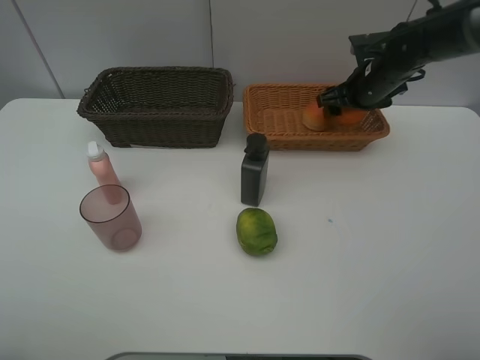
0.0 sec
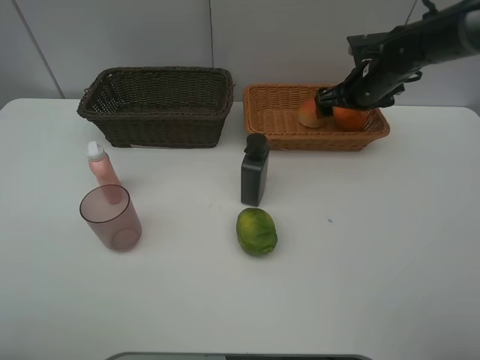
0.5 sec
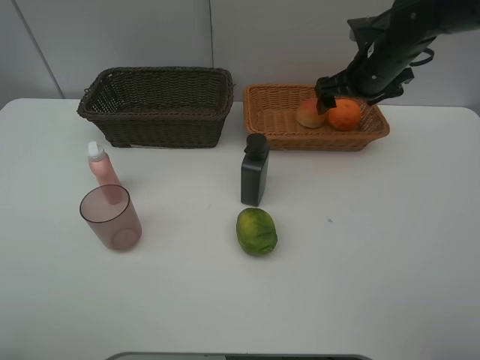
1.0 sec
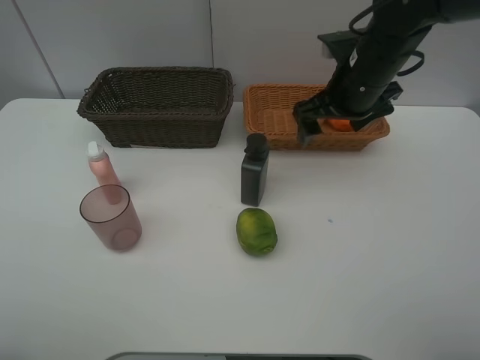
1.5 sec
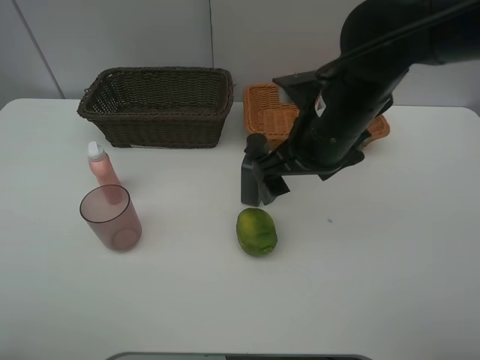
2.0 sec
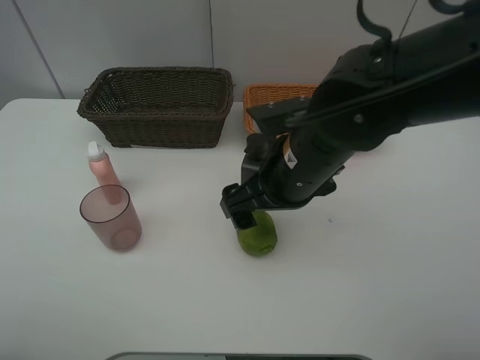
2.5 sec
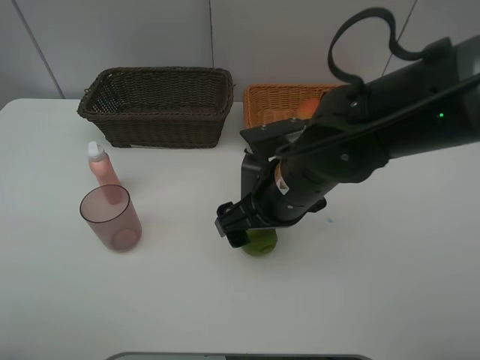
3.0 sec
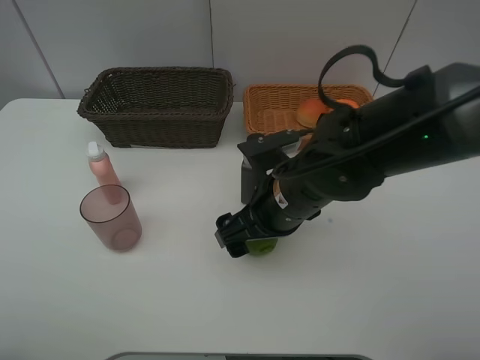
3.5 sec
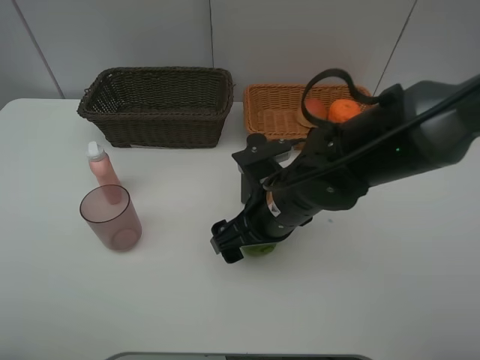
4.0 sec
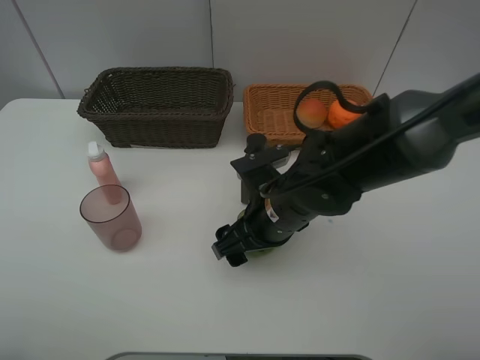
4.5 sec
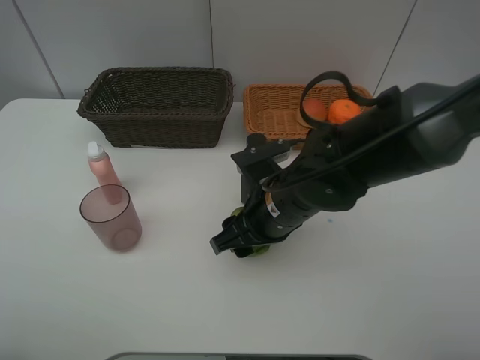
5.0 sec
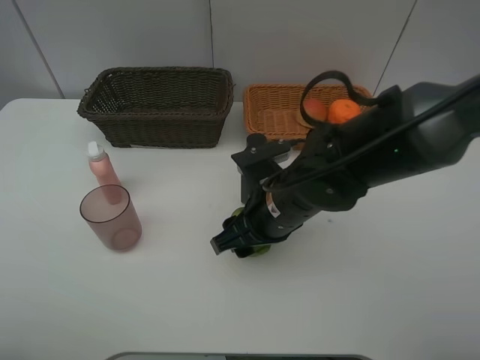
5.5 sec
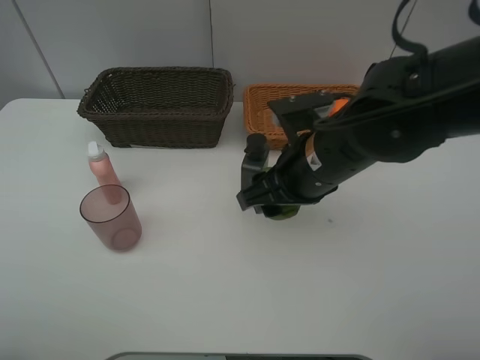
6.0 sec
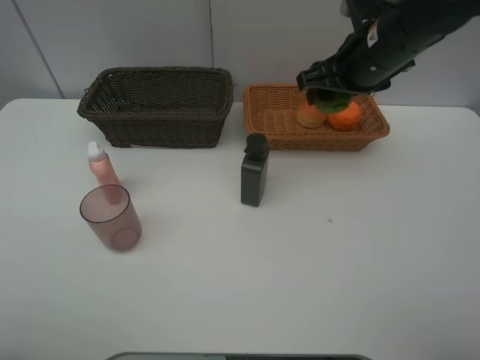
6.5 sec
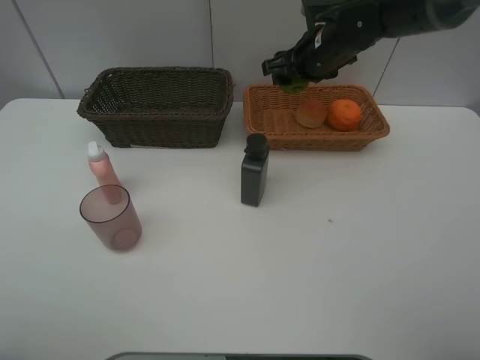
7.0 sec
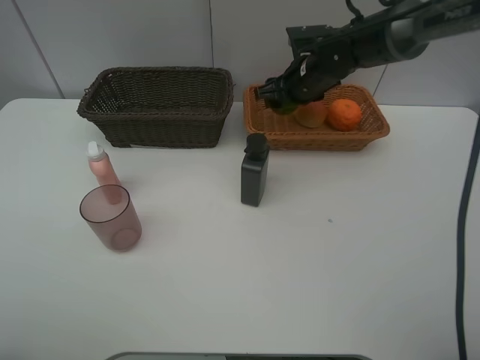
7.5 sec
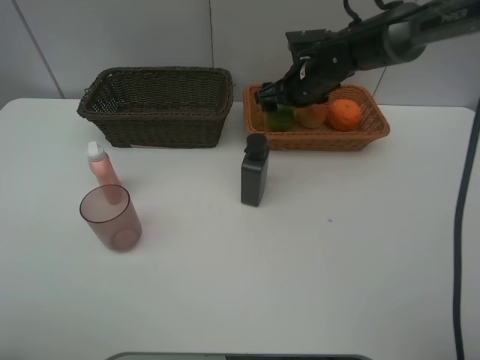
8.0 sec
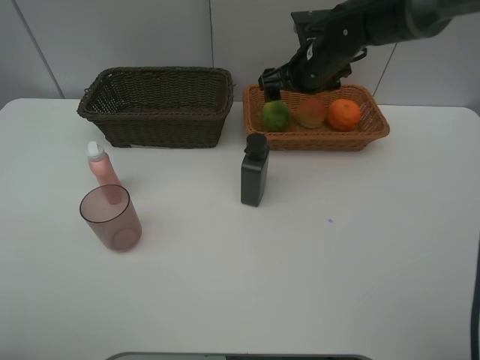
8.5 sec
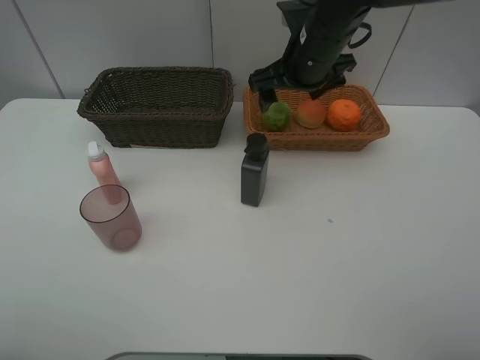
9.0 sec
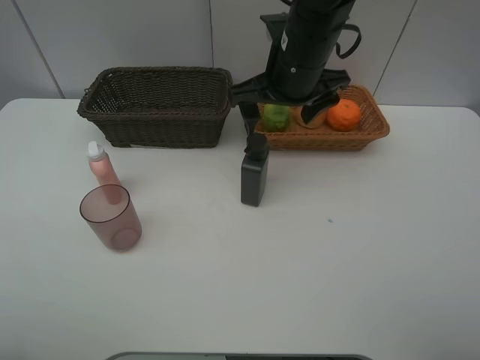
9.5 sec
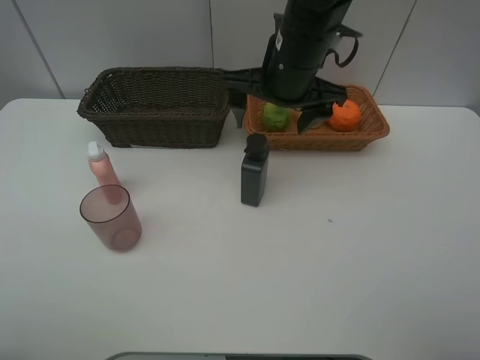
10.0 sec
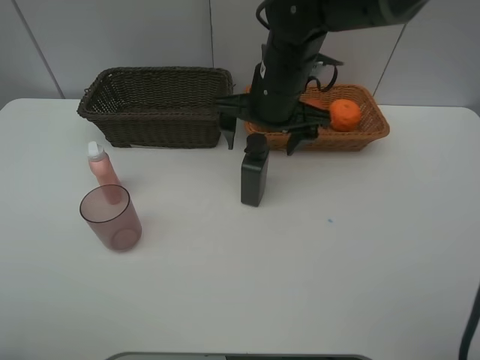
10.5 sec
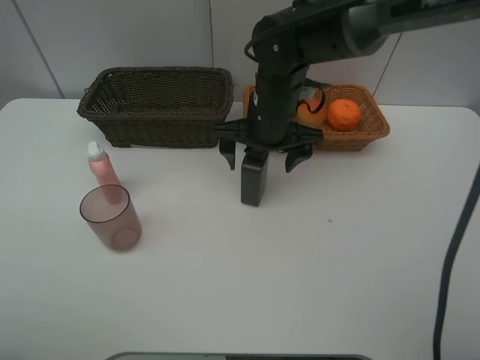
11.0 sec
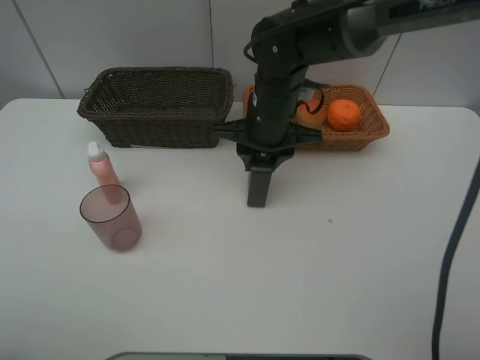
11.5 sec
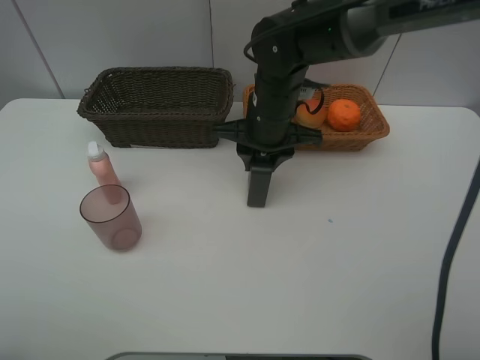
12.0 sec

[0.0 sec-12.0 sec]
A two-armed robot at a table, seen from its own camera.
Task of the whole recording: place multiple objects separately in different baskets.
0.0 sec to 2.0 sec: The right gripper moves backward and to the left, some 25 cm, and opens up.
2.0 sec to 4.0 sec: The right gripper heads downward, covering about 10 cm.
4.0 sec to 6.0 sec: The right gripper goes about 5 cm upward, and closes.
6.0 sec to 8.0 sec: The right gripper moves forward, about 20 cm, and opens up.
8.0 sec to 10.0 sec: The right gripper goes approximately 15 cm backward, upward and to the left.
10.0 sec to 12.0 sec: The right gripper heads downward, covering some 10 cm, and closes up.

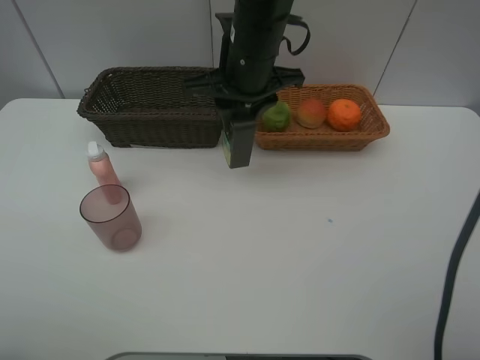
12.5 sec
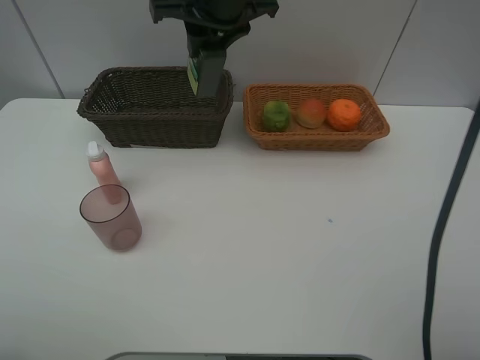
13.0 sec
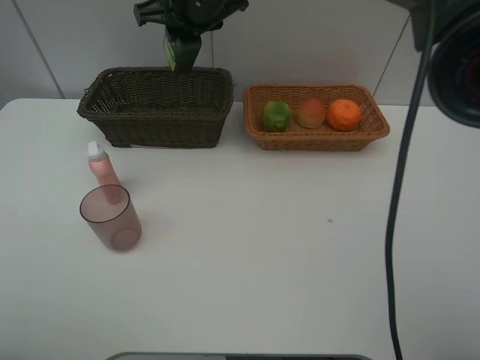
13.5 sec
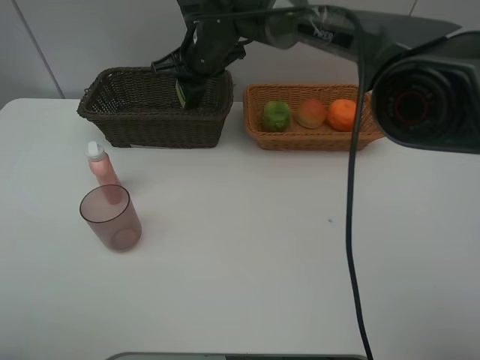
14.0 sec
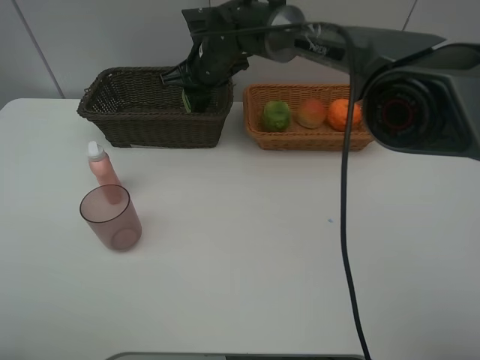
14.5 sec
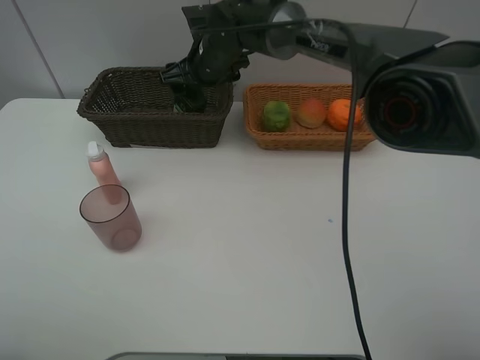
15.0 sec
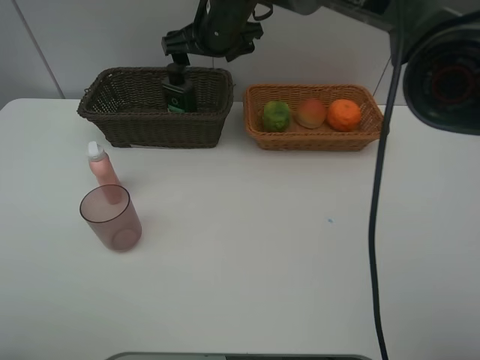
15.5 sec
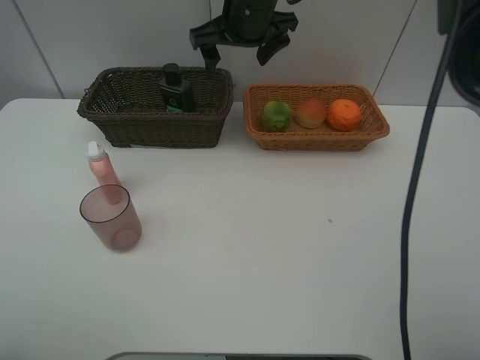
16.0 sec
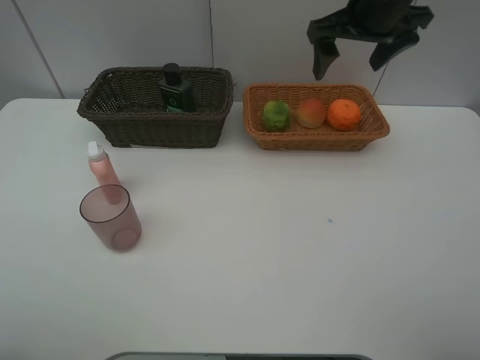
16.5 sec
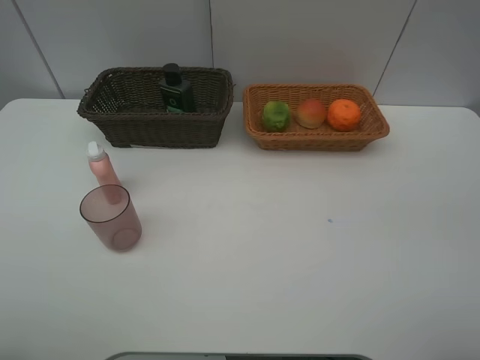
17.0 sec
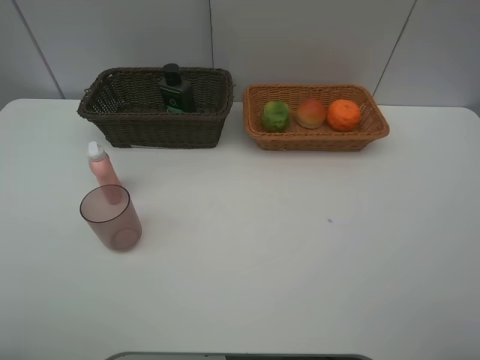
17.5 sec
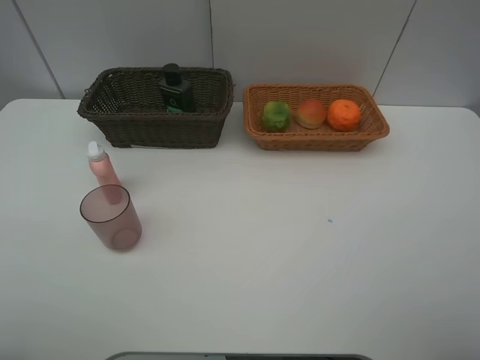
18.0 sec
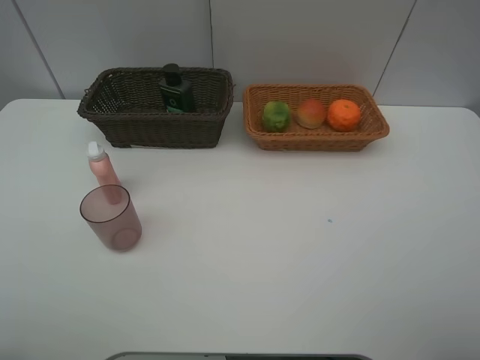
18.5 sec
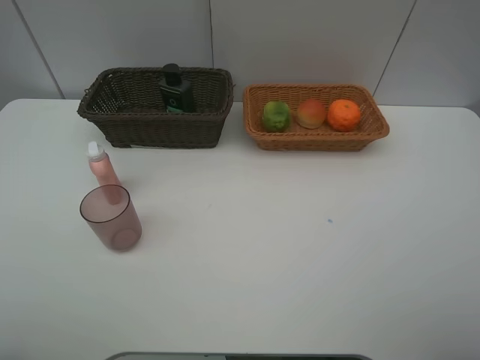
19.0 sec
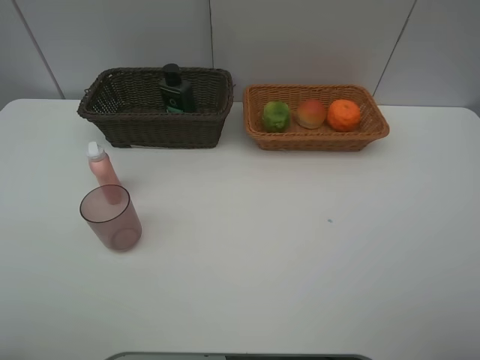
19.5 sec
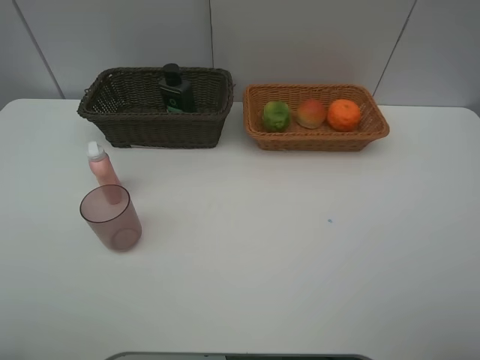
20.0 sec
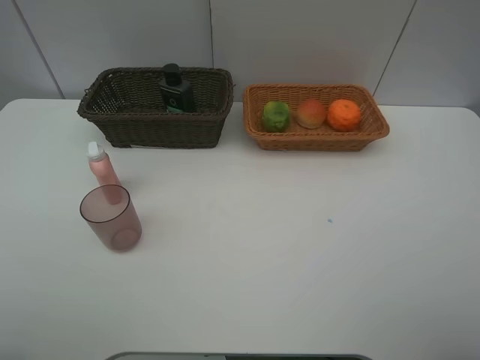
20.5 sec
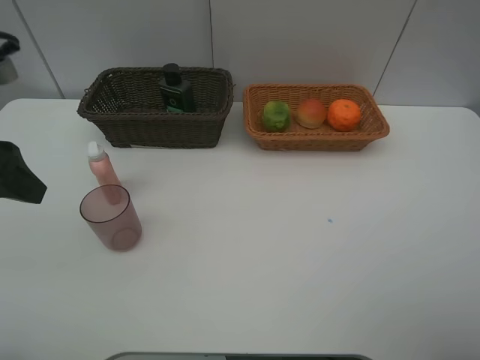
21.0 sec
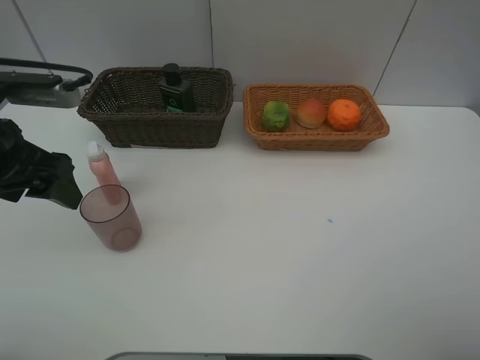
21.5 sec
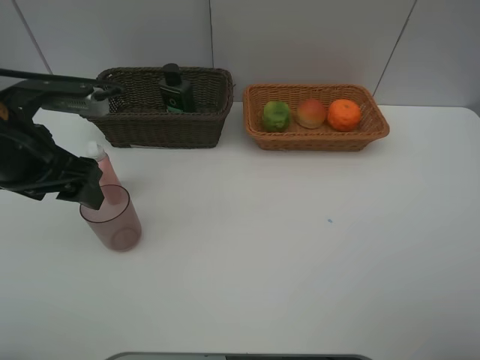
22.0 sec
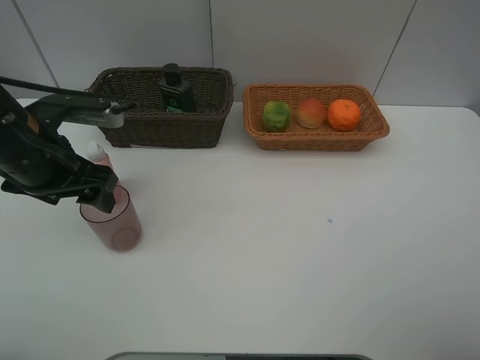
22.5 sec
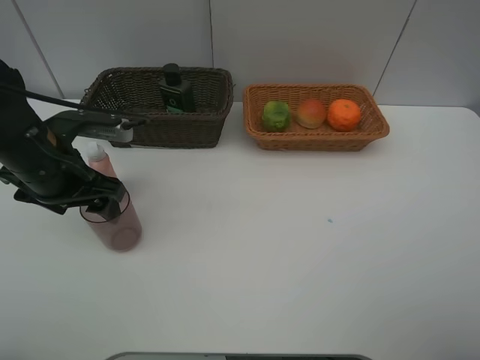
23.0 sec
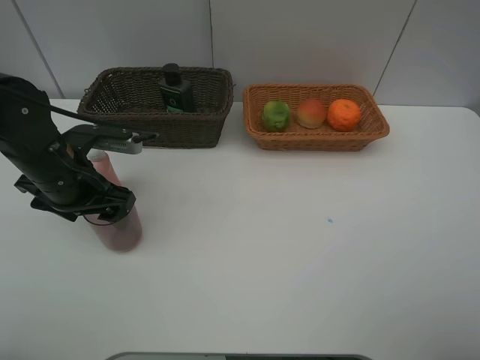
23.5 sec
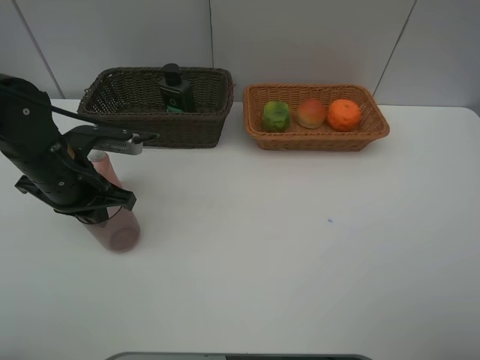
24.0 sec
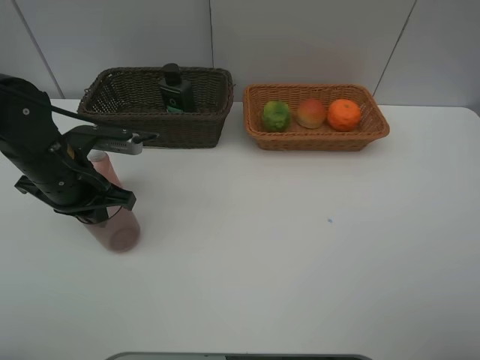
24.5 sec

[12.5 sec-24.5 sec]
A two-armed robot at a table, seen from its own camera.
Task of the whole recording: place multiple objects separately in different baskets.
12.5 sec to 14.5 sec: The right gripper is displaced forward, downward and to the left by approximately 15 cm.
14.5 sec to 16.5 sec: The right gripper moves to the right, upward and backward, some 25 cm, and opens.
16.5 sec to 18.5 sec: The right gripper goes some 40 cm backward.
20.5 sec to 22.5 sec: The left gripper goes roughly 20 cm forward and downward.
22.5 sec to 24.5 sec: The left gripper moves downward, about 5 cm, and closes.

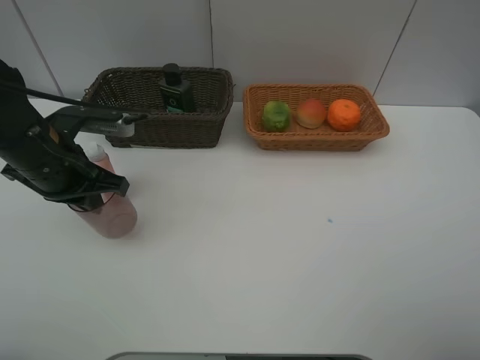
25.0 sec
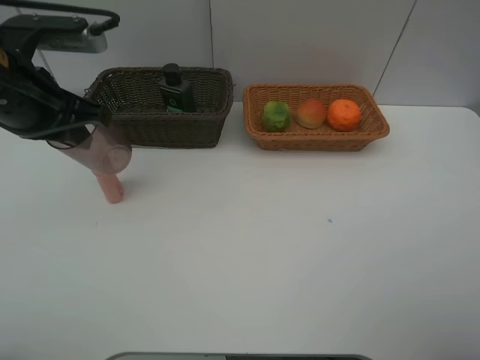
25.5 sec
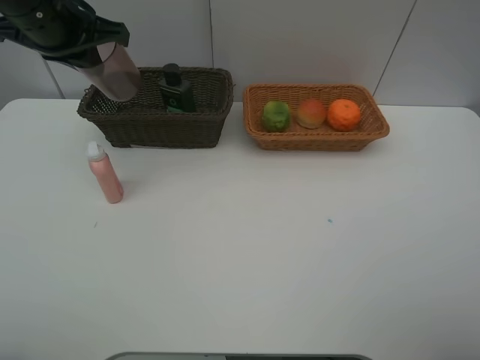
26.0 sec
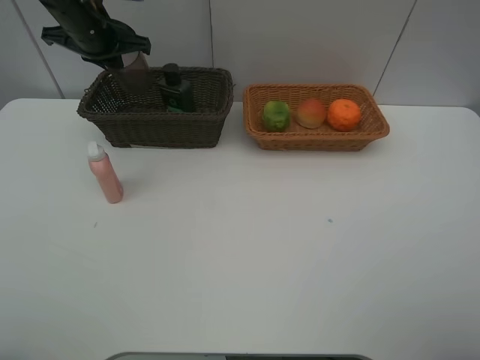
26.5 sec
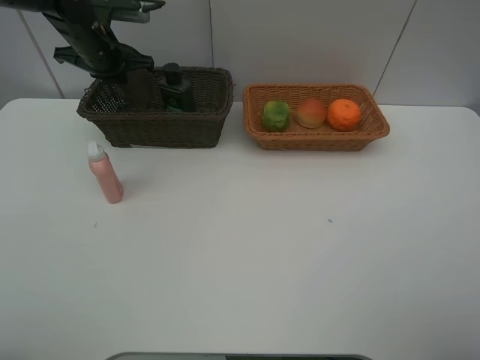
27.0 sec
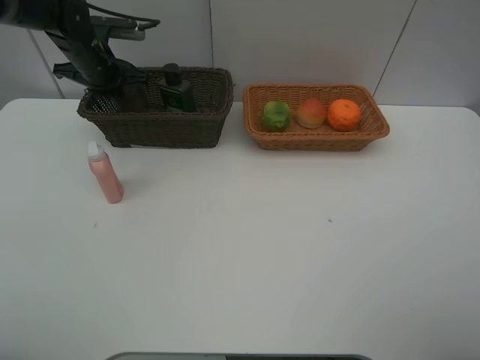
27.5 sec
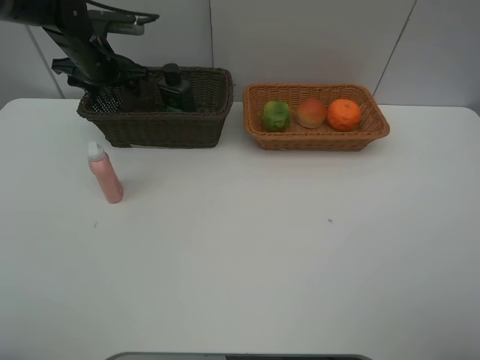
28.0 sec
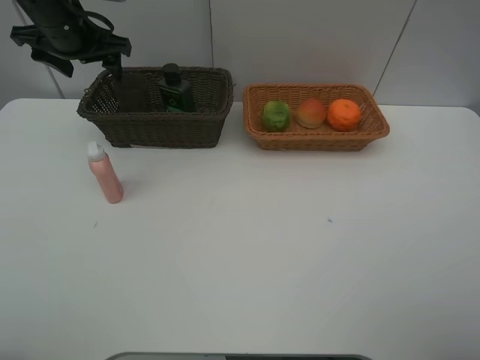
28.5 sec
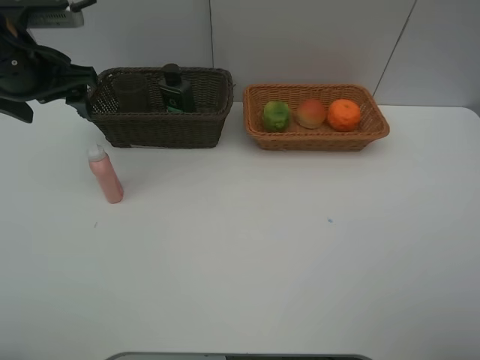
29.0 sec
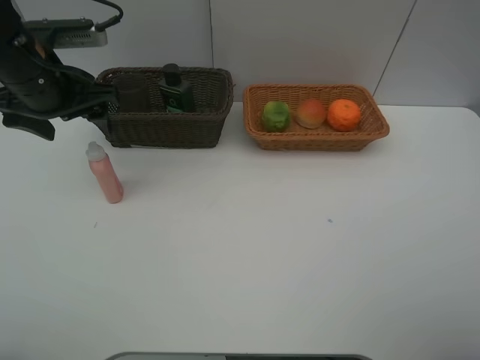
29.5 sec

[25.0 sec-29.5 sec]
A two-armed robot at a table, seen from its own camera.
Task of the whole recording: place multiple objects separately in different baskets.
25.0 sec to 27.0 sec: The left gripper heads forward, covering roughly 20 cm.
27.0 sec to 29.5 sec: The left gripper shifts approximately 15 cm backward, and opens up.
